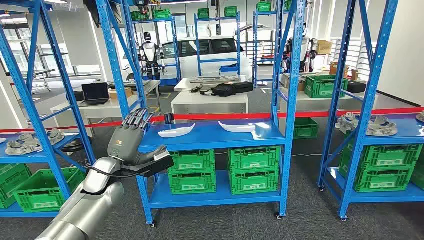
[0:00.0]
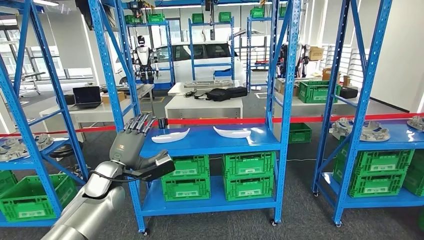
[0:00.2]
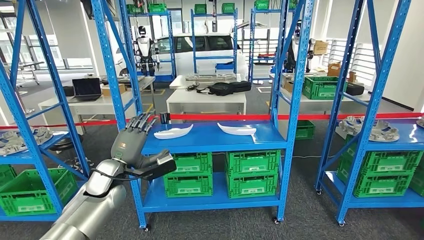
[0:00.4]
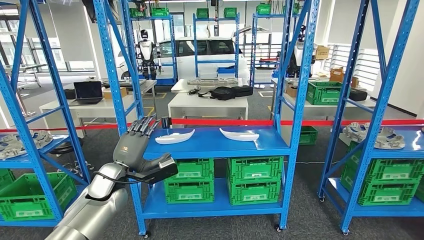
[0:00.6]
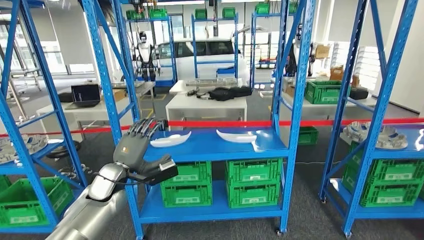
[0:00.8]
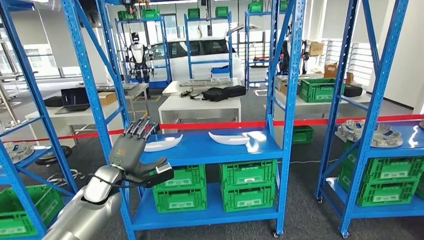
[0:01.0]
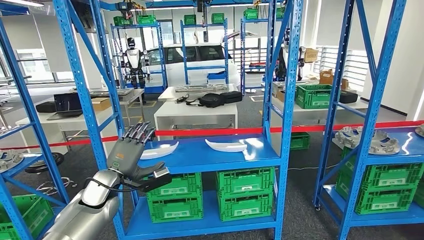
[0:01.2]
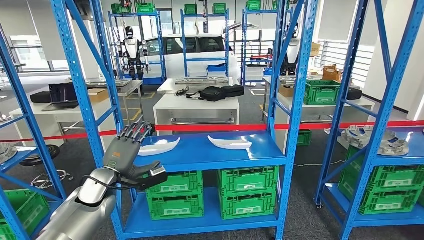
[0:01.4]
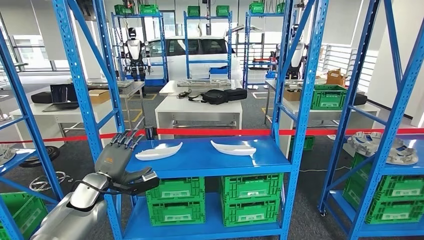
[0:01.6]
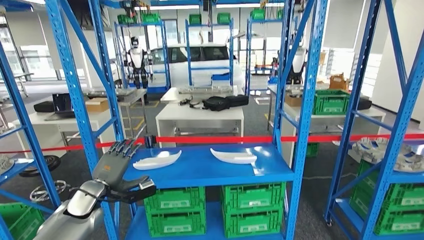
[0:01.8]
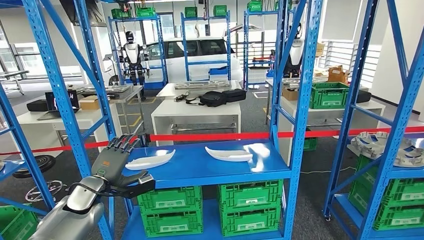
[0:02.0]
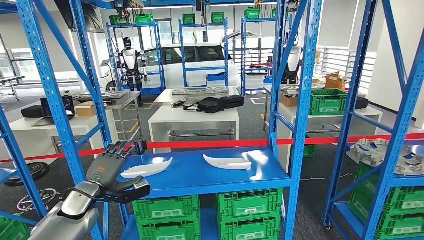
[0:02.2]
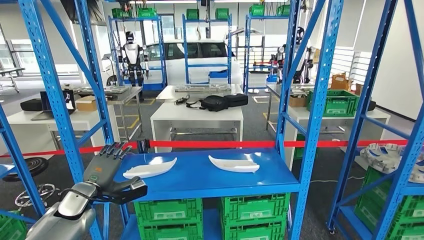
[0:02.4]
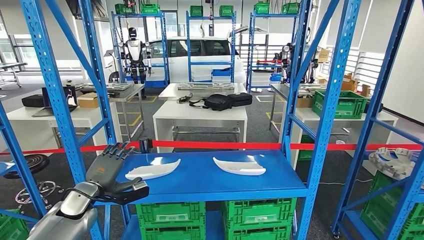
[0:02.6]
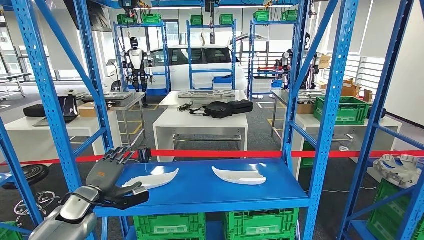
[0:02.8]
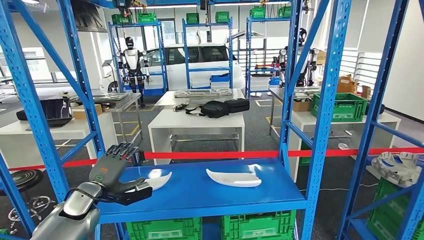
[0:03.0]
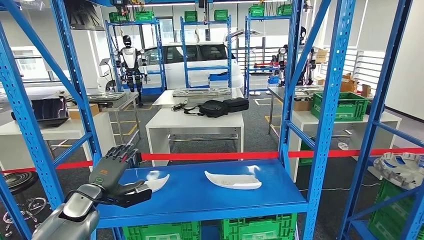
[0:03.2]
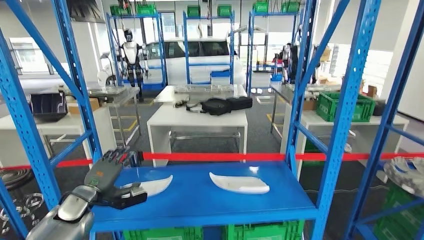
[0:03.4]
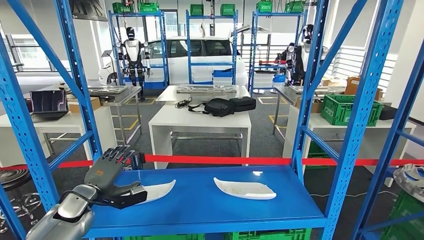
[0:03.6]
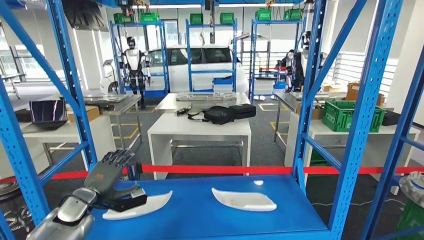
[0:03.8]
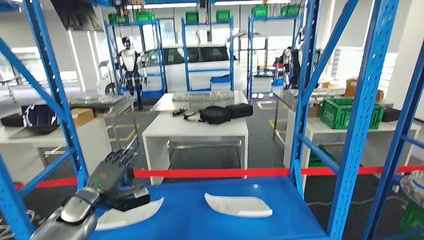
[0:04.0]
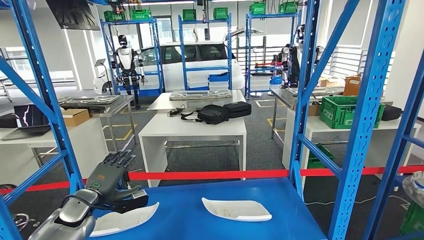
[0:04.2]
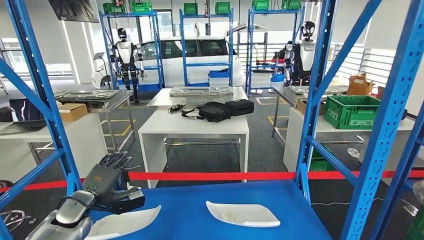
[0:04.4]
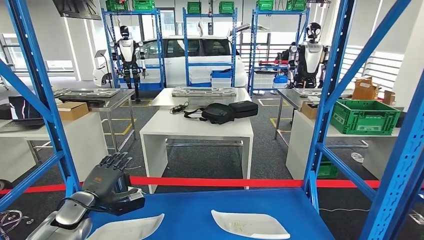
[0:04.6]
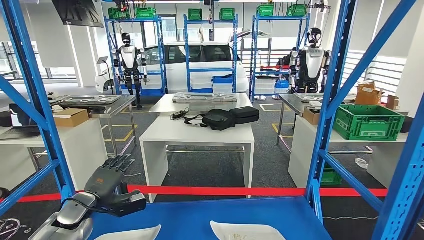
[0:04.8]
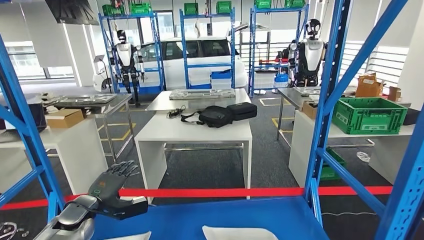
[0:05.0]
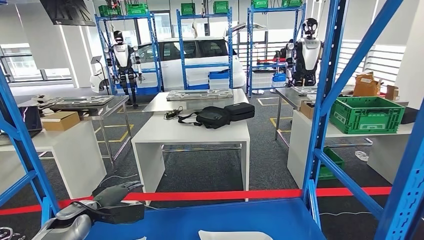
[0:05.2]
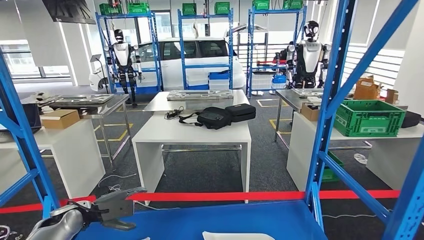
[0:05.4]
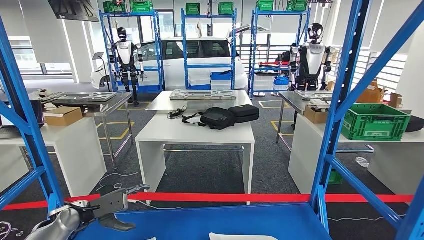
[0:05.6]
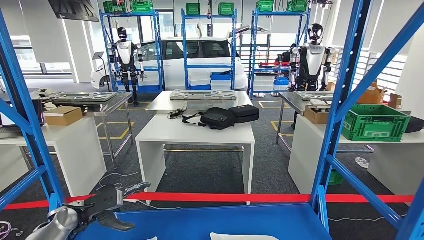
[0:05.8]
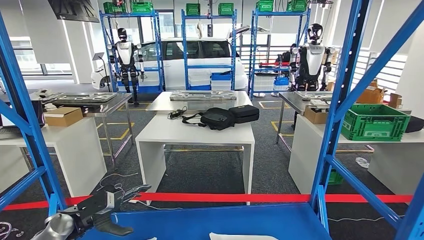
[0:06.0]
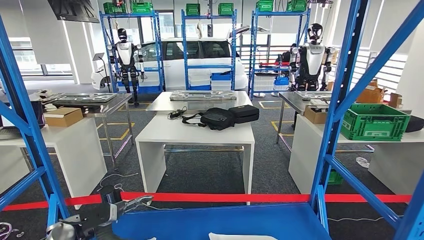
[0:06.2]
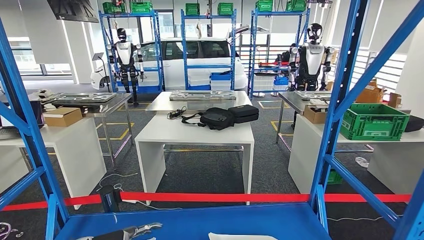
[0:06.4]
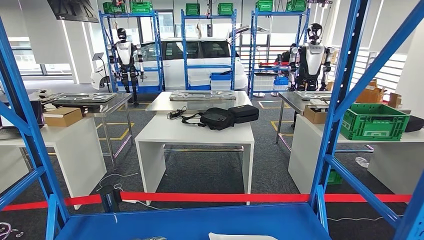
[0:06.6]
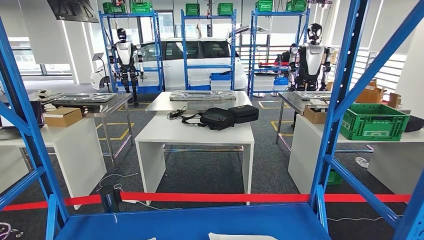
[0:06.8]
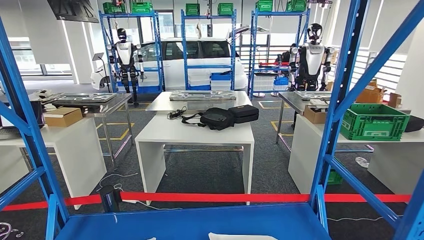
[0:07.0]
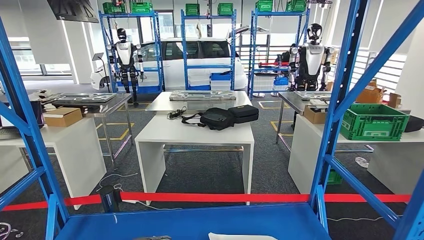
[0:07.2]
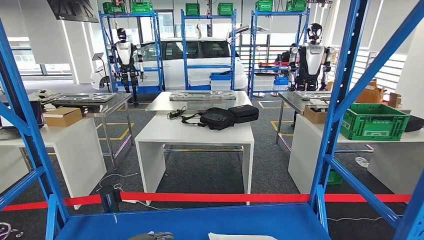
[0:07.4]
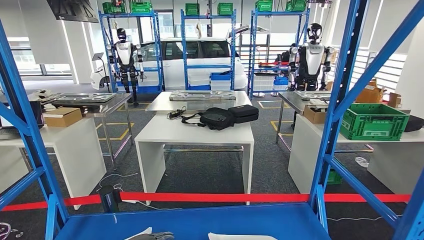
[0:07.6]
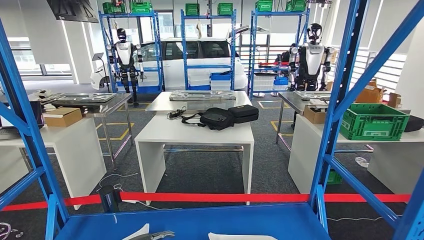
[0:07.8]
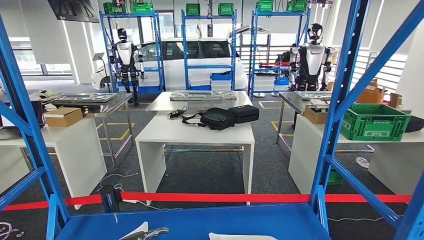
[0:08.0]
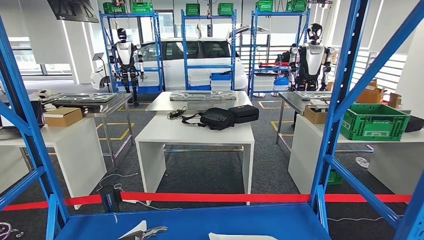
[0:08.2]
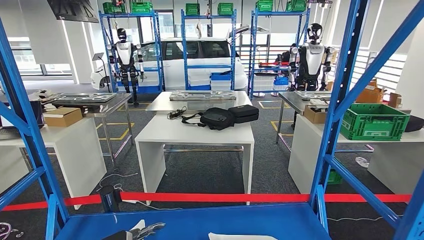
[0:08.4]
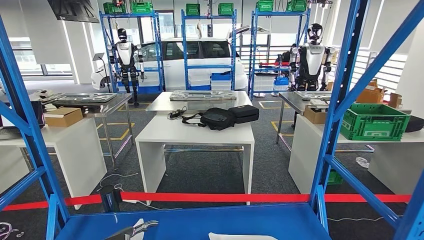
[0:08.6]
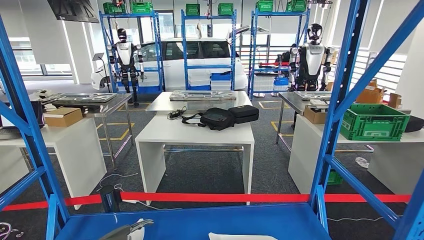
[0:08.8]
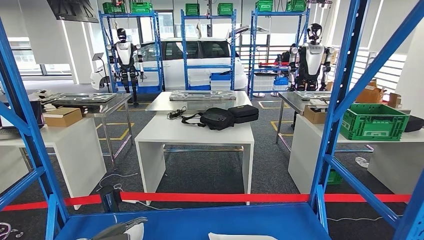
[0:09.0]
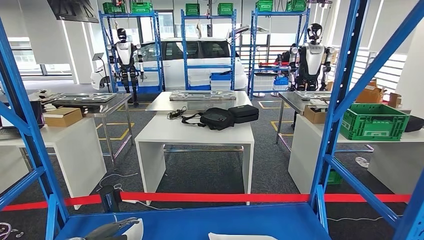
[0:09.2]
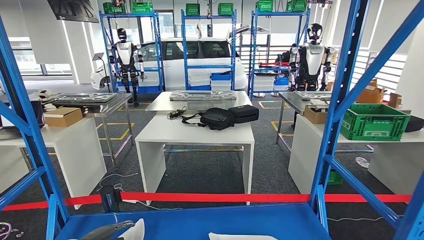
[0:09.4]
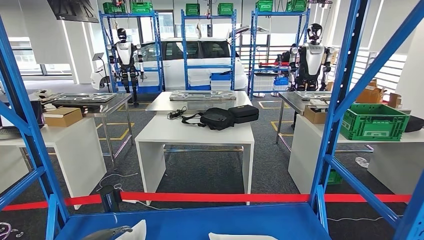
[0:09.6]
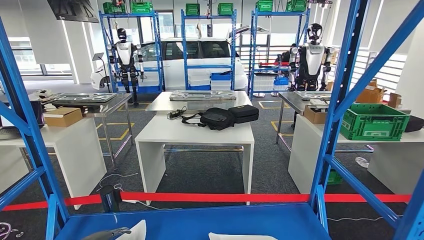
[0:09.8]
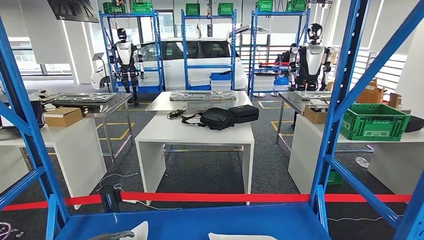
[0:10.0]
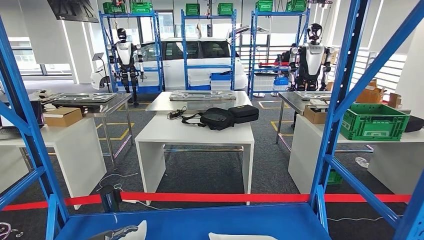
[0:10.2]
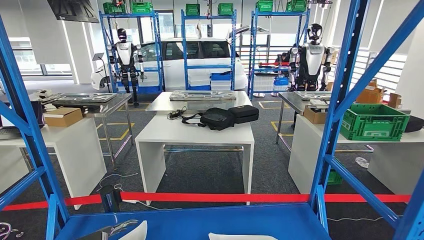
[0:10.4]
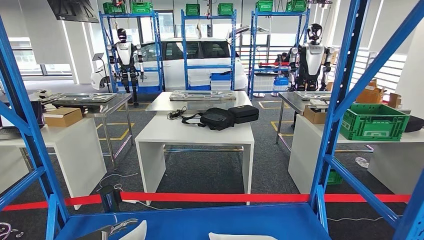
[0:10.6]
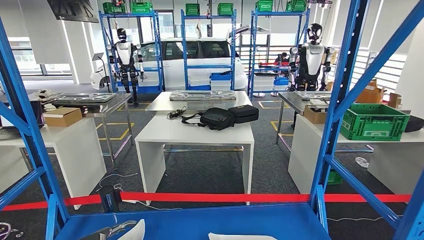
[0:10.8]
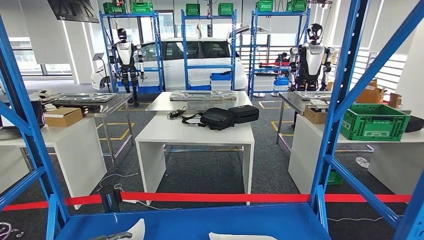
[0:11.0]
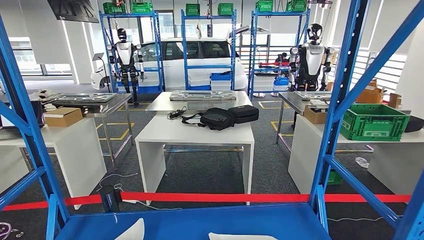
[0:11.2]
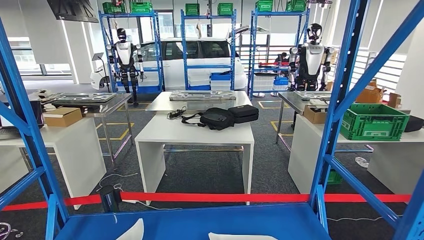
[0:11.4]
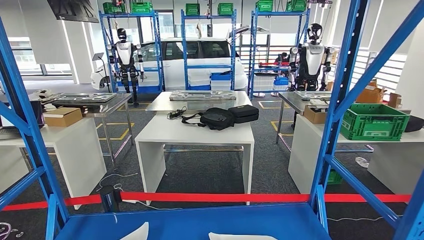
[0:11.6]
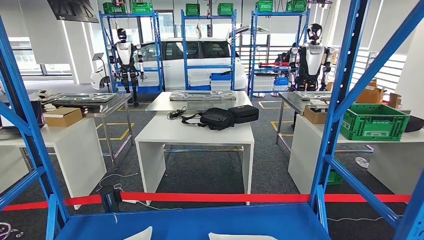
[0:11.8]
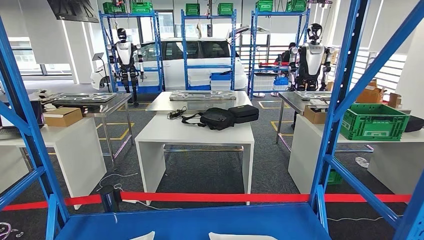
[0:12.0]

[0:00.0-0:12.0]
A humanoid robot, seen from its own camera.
0:06.0 to 0:07.6: The left hand is displaced downward and to the right by some 10 cm.
0:07.6 to 0:09.0: The left hand is displaced to the left by approximately 5 cm.
0:09.0 to 0:10.4: The hands move only a little.

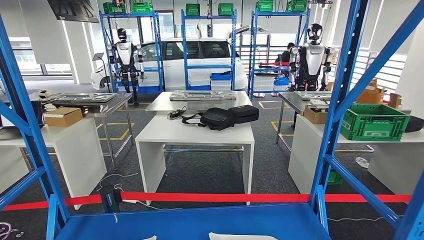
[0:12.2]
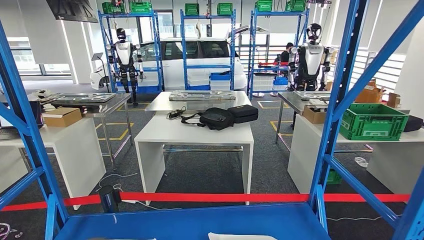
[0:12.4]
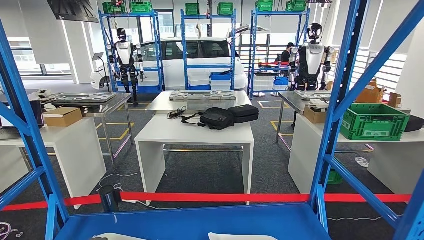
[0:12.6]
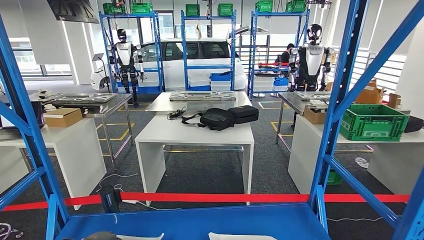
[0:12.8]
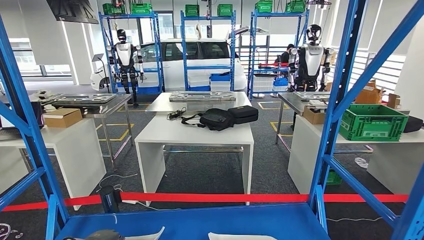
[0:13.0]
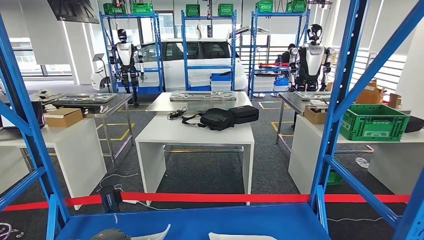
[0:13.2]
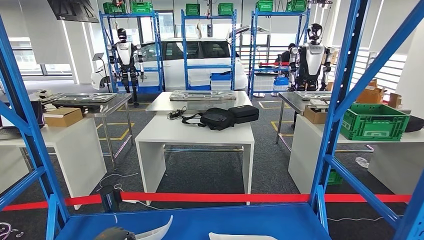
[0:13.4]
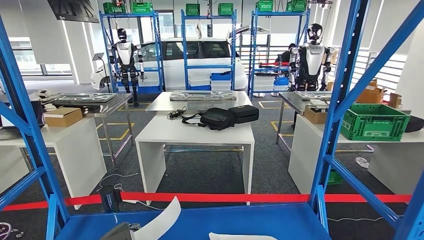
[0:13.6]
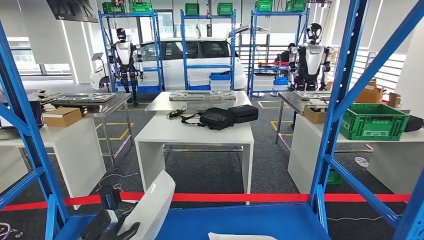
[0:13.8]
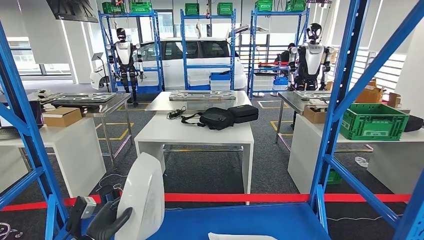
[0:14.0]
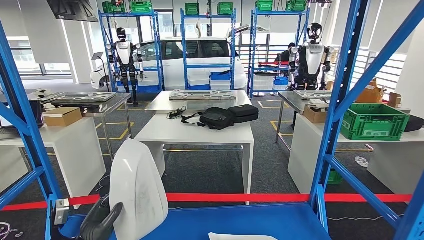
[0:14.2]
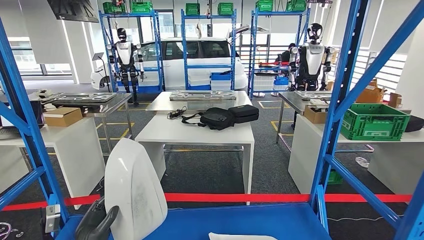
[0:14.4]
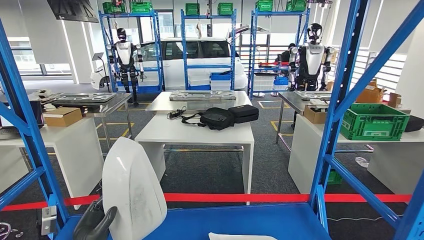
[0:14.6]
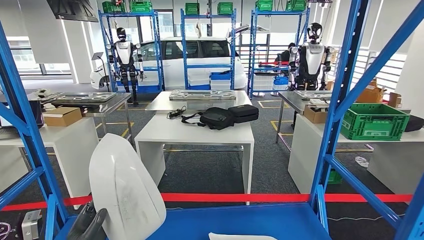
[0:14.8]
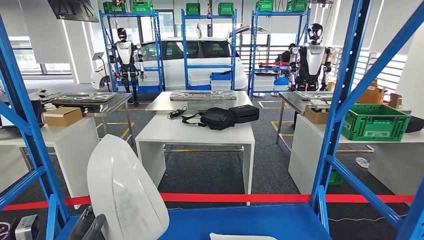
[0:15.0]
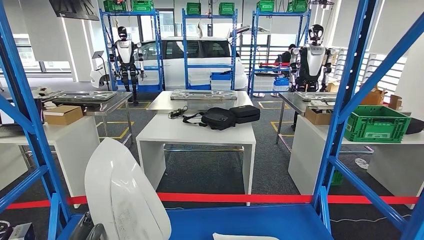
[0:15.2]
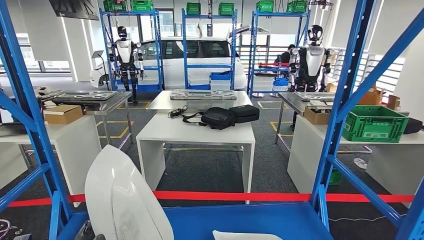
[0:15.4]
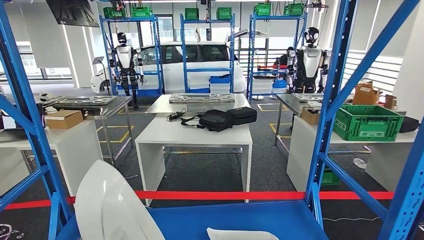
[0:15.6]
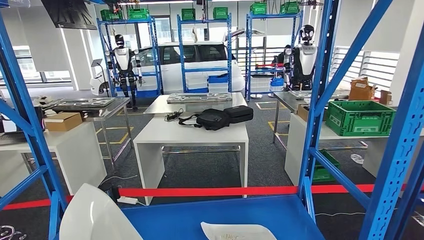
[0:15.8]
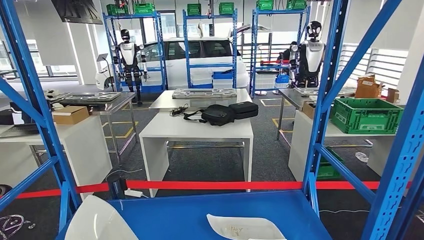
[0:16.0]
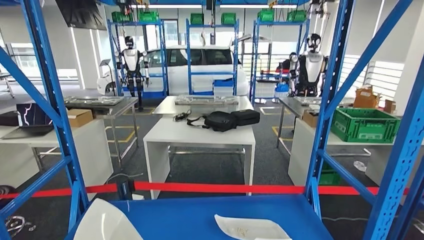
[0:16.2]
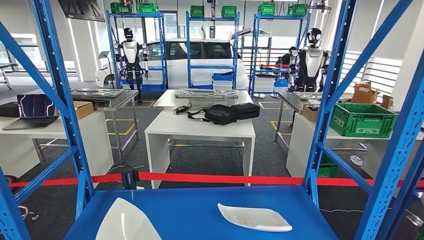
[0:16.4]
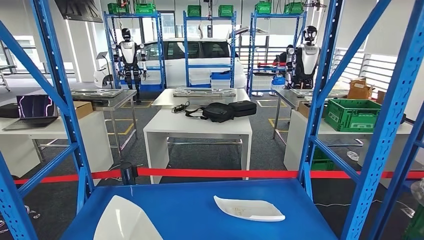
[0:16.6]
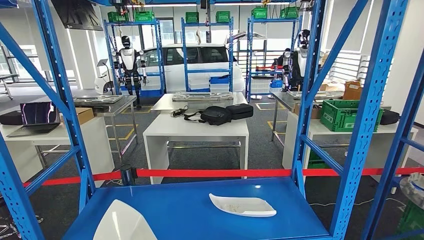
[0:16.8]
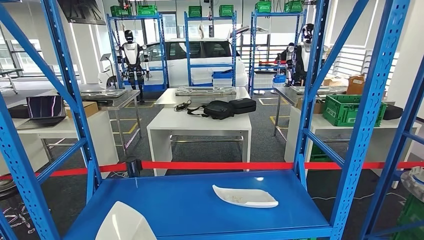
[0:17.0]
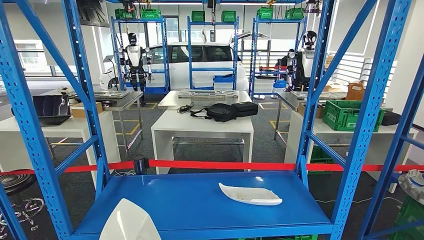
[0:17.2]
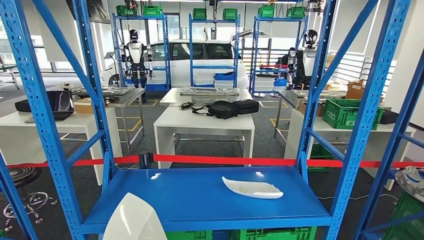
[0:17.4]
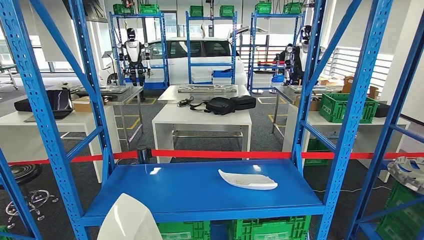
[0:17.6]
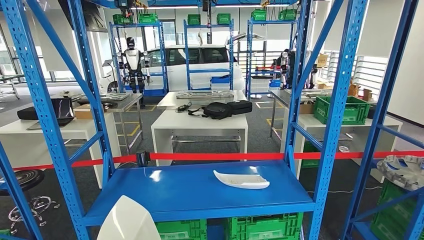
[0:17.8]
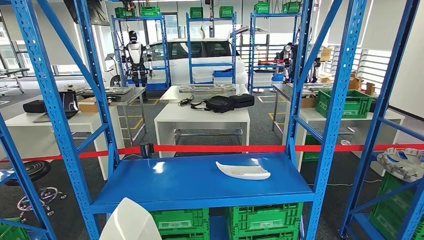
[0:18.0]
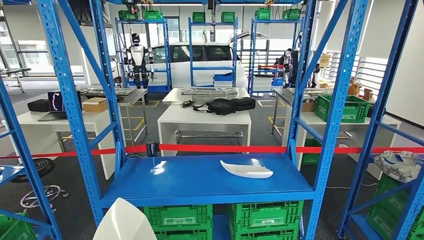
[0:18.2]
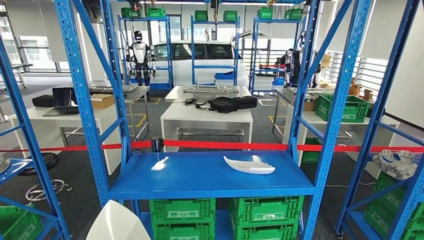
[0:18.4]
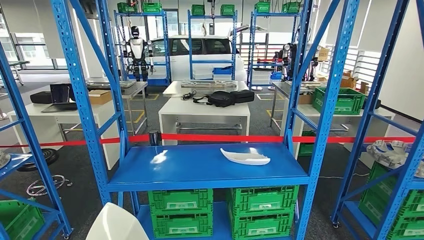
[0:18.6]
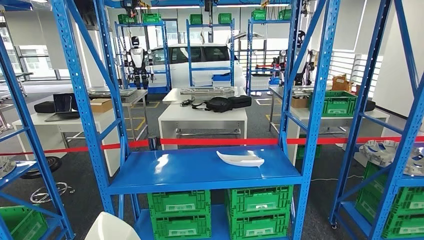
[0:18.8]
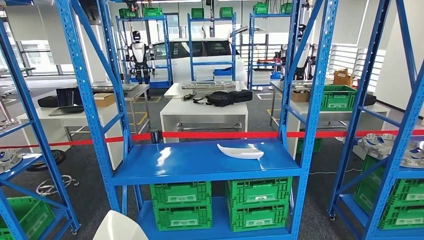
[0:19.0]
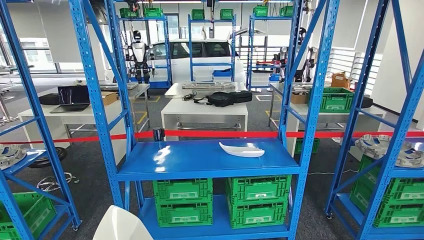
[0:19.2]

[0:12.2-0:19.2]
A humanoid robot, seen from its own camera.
Step, 0:12.2 to 0:15.6: Pick up the small parts from the shelf.
0:12.2 to 0:13.6: The left hand is displaced to the right by some 10 cm.
0:13.6 to 0:15.0: The left hand shifts roughly 15 cm upward, backward and to the right.
